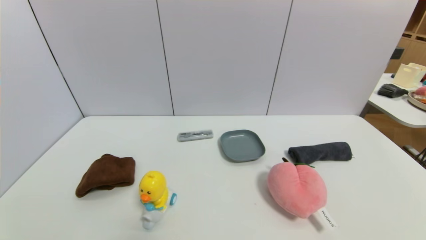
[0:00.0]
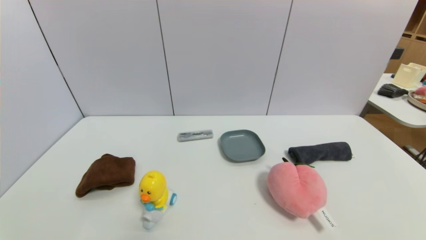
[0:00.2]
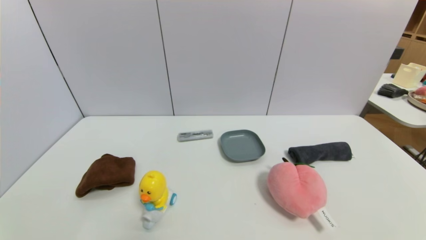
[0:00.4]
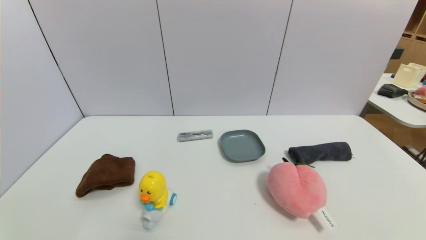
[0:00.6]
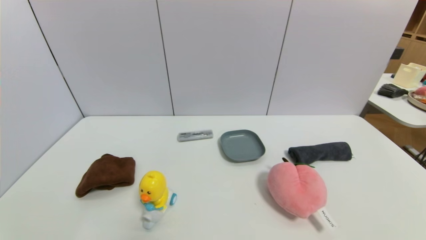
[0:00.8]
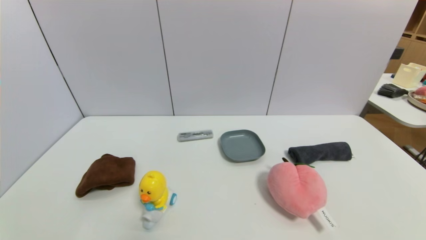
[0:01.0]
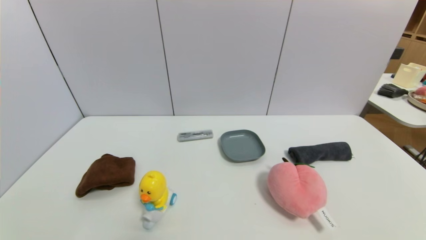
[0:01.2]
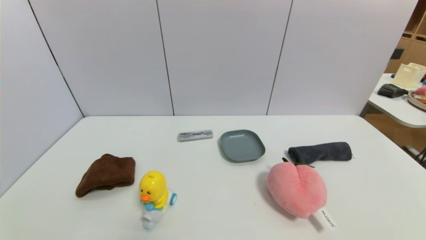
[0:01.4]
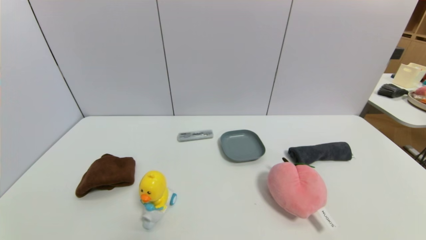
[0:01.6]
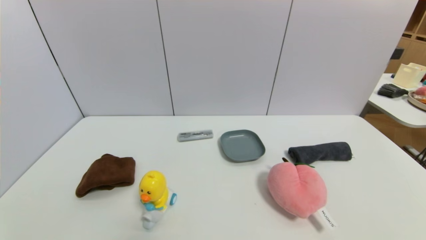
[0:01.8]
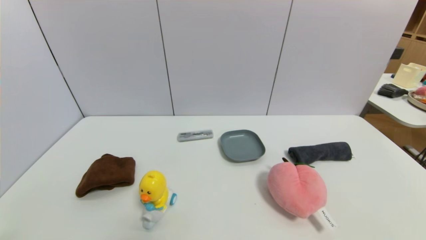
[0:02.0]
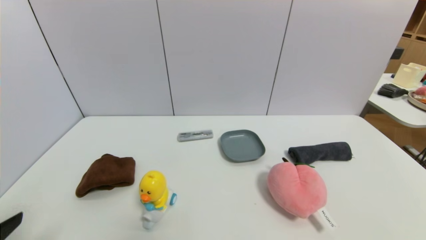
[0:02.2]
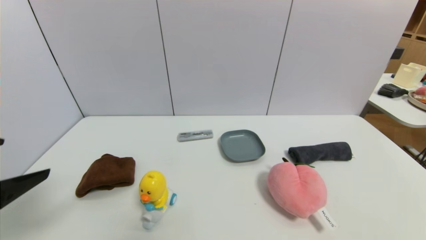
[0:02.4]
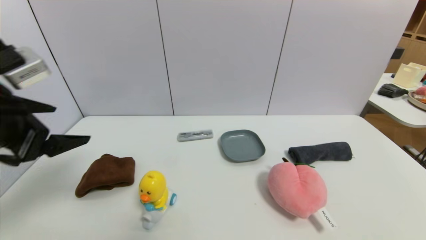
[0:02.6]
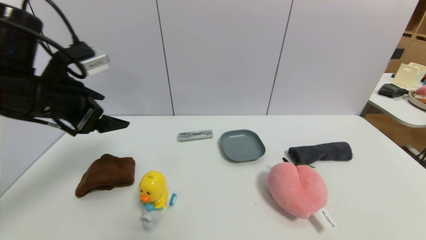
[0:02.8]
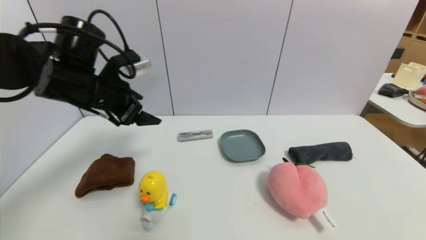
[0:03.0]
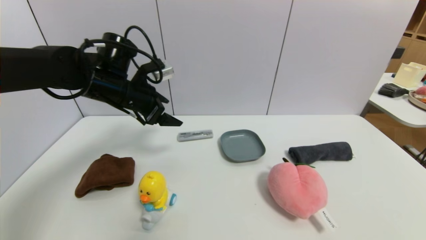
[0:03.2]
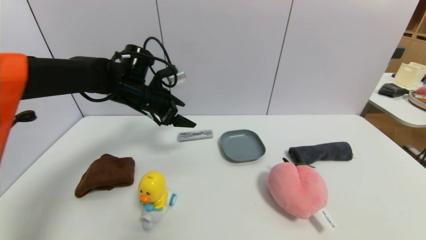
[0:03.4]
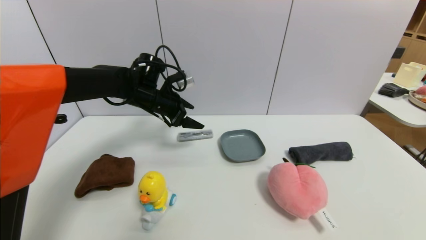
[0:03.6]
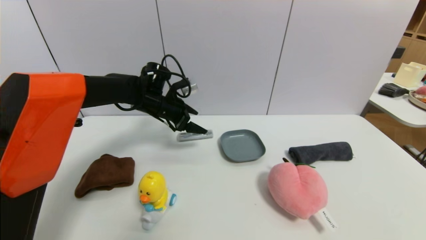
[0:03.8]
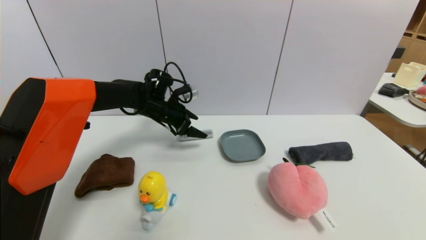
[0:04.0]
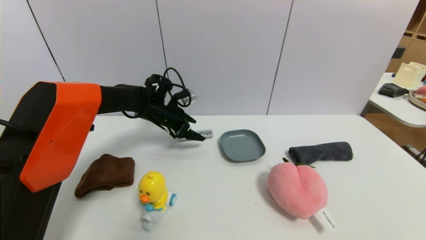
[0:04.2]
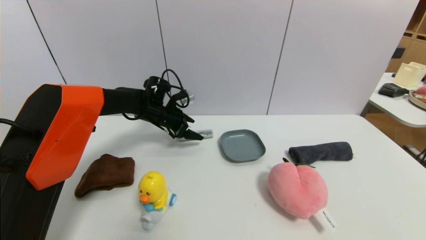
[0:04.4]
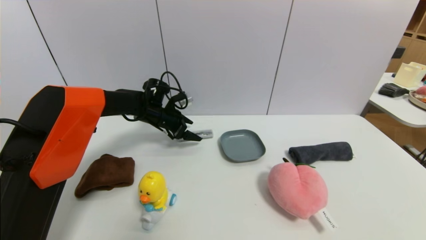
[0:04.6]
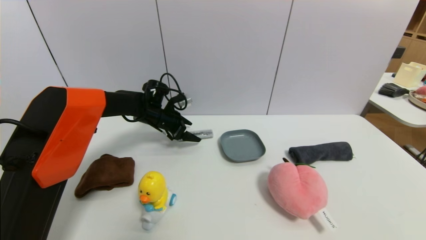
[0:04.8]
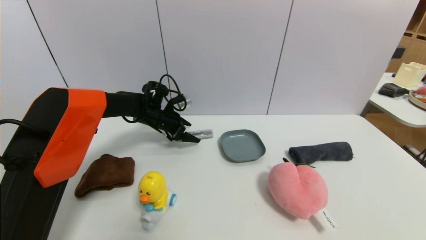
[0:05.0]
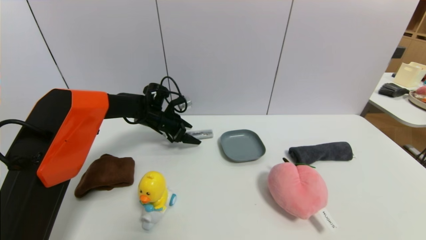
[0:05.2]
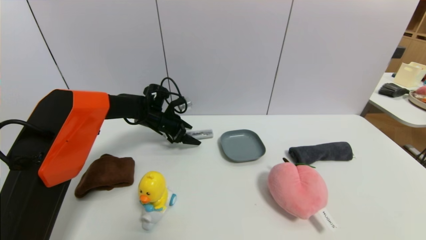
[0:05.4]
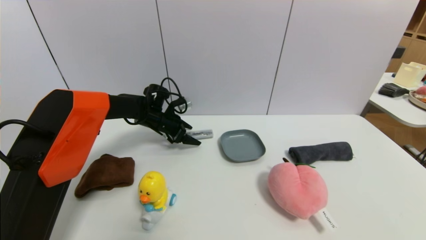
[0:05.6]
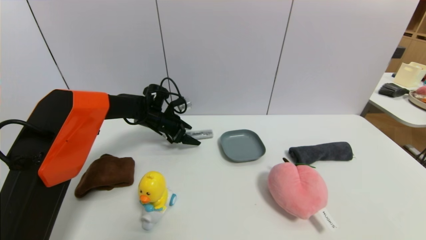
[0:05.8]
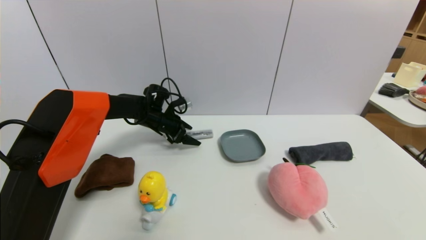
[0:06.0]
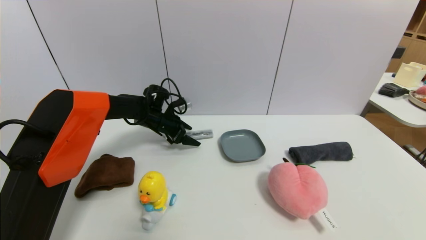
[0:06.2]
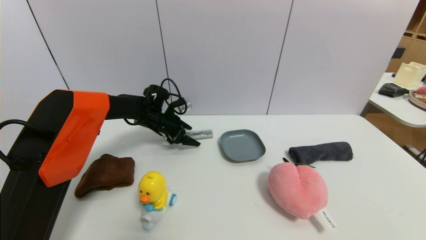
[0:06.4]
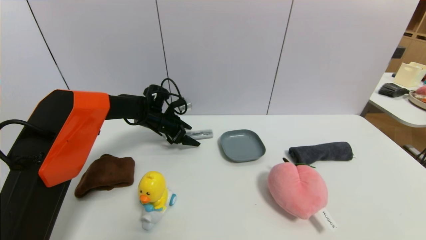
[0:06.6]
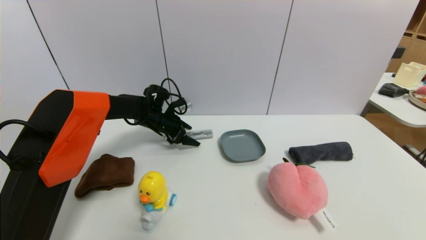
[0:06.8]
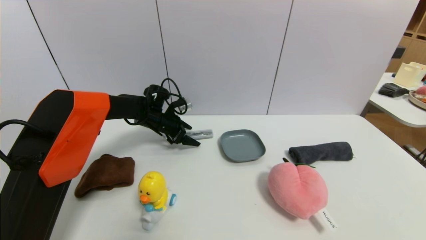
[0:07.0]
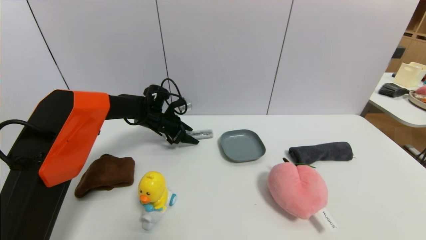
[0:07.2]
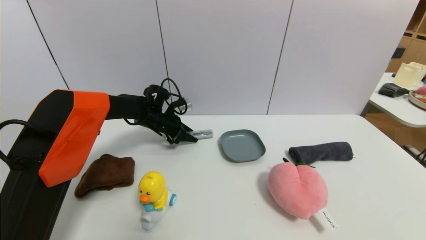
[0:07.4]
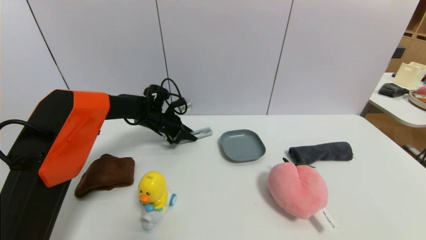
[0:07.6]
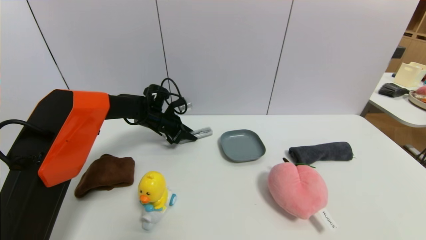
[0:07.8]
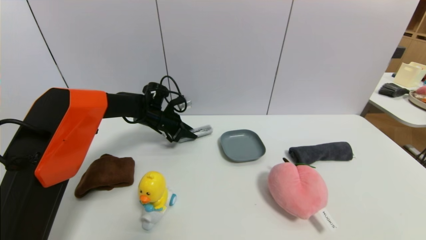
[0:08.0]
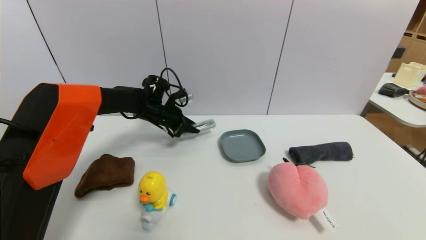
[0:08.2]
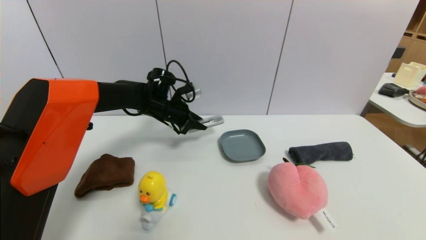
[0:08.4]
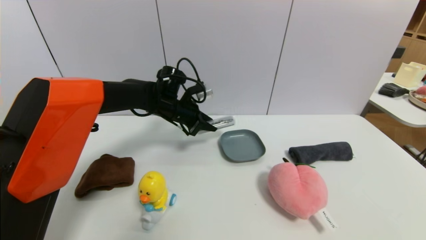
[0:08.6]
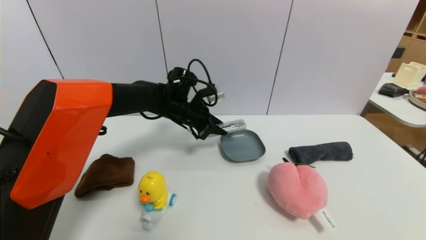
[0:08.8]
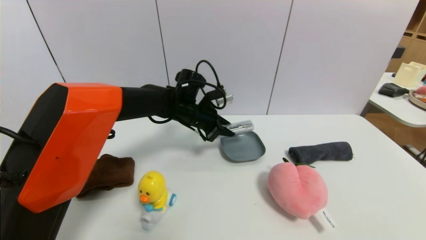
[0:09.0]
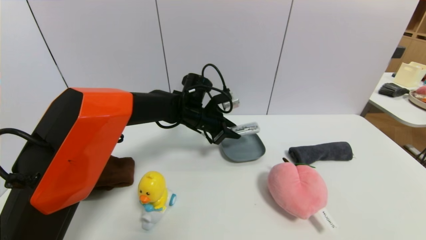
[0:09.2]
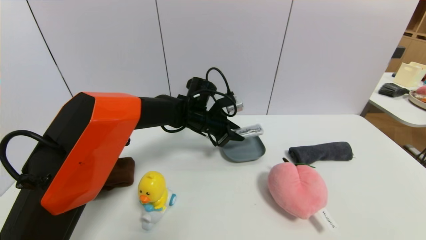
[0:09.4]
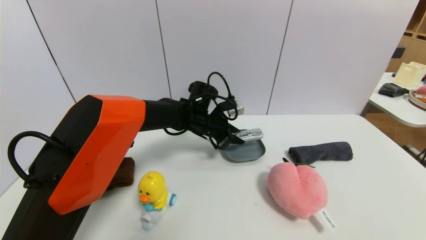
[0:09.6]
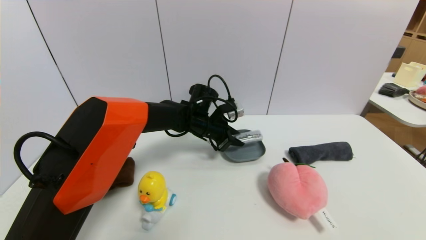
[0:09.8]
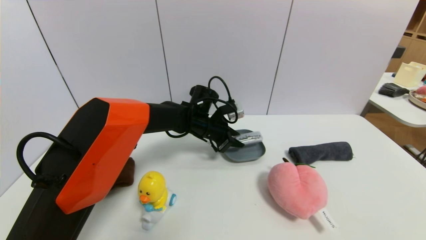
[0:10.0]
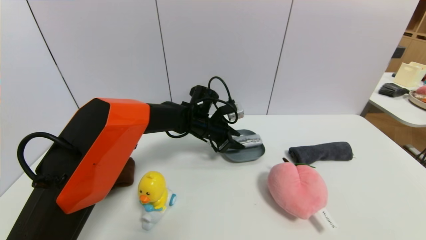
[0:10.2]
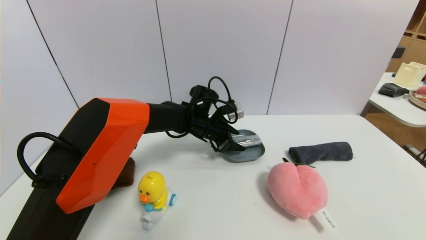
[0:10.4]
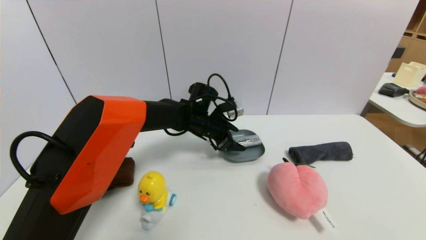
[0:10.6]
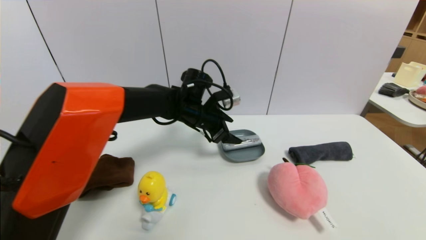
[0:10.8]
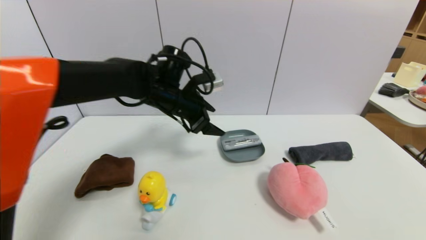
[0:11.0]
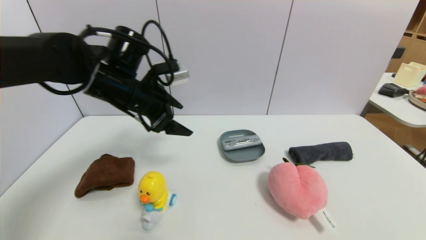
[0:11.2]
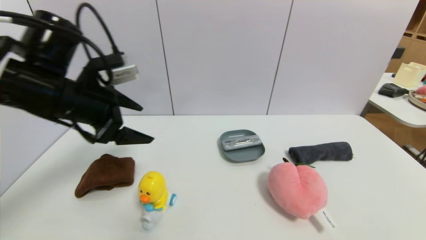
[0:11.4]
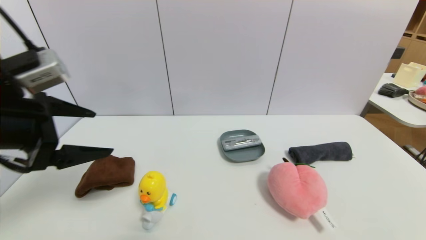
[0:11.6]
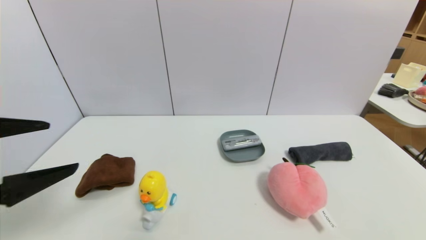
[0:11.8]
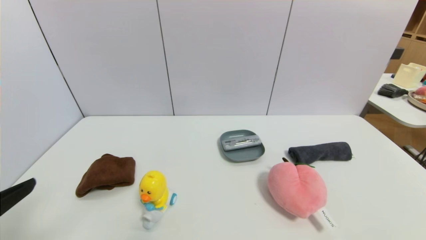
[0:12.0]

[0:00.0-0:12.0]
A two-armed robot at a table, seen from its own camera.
Task of the whole recording: use a gripper to pick the target object and place on the dish.
Step, 0:00.0 to 0:07.6: Grasp the compasses with the left gripper.
Step, 0:07.8 to 0:10.8: Place the compasses on the dish with the left gripper.
0:00.0 to 0:01.6: The two grippers keep their place.
0:01.6 to 0:03.0: The left gripper is displaced forward and upward by approximately 40 cm.
0:03.0 to 0:04.4: The left gripper goes some 20 cm forward and downward.
0:04.4 to 0:06.0: There are only small adjustments of the grippers.
0:07.6 to 0:09.0: The left gripper travels to the right, upward and backward by roughly 15 cm.
0:09.0 to 0:10.4: The left gripper moves some 5 cm, and opens.
0:10.4 to 0:12.0: The left gripper travels backward and to the left by roughly 50 cm, and opens.

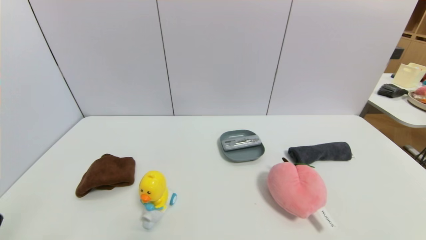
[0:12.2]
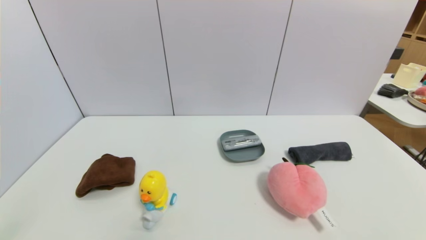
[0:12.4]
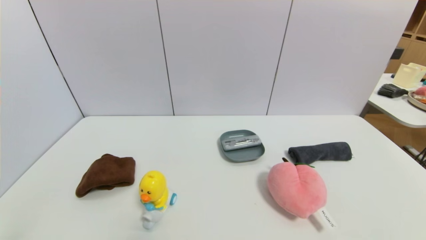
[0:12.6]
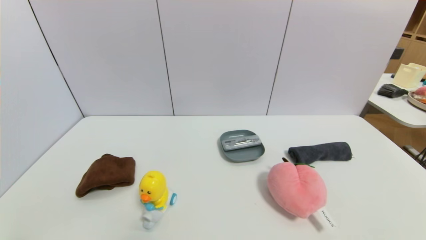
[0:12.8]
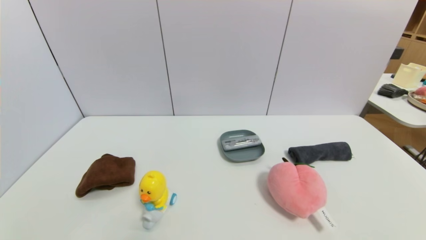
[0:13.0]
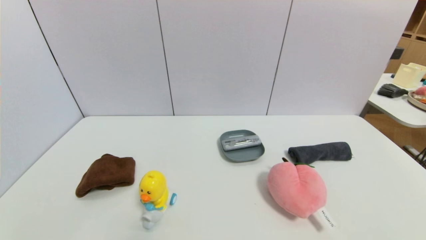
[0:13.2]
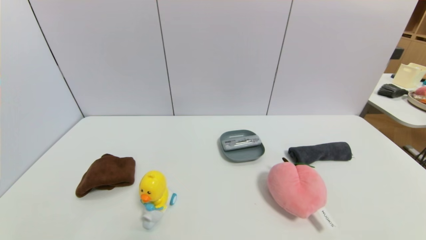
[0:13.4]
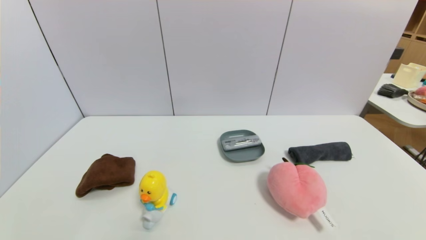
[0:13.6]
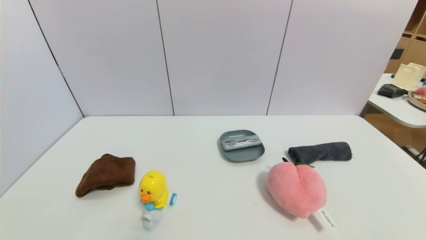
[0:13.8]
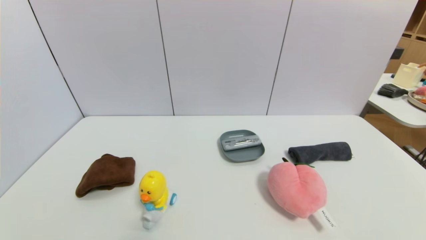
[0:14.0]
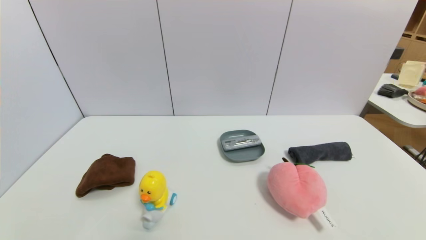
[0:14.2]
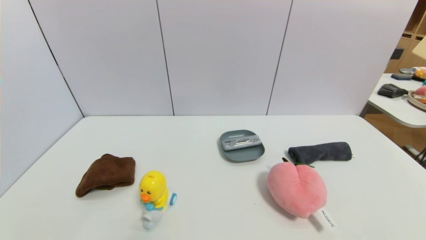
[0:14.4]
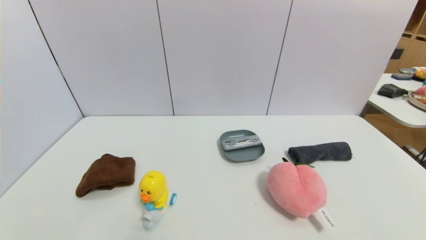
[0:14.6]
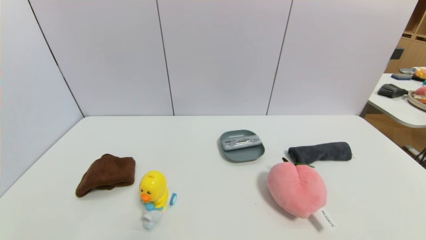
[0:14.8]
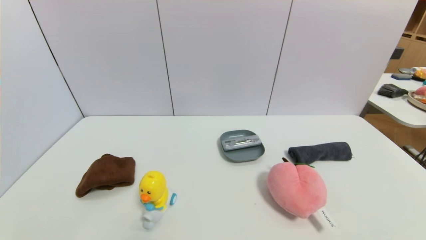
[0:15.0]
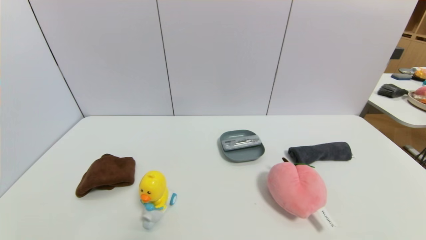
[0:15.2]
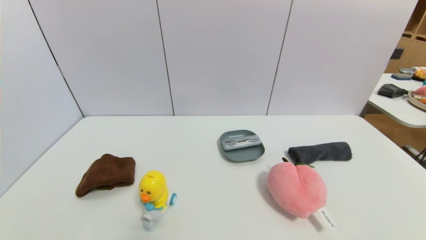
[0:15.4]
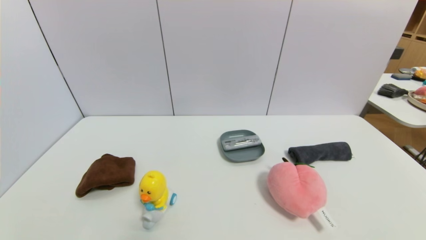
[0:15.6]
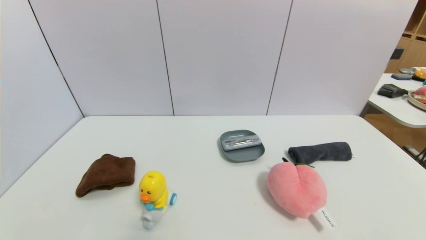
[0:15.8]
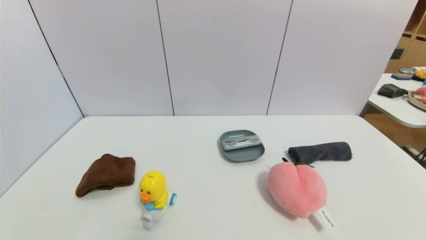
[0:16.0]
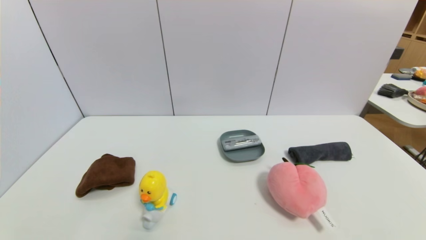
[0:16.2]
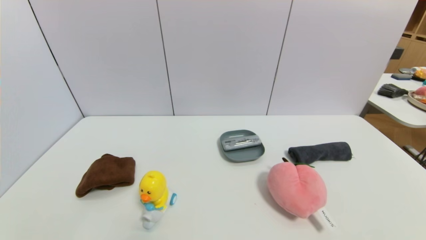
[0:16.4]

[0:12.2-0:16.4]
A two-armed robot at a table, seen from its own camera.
Task of the whole recording: use a gripper to pick the target object and place on the dish.
0:13.6 to 0:16.4: Neither gripper changes place.
